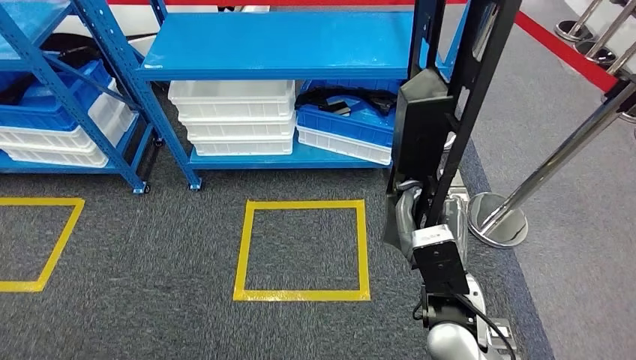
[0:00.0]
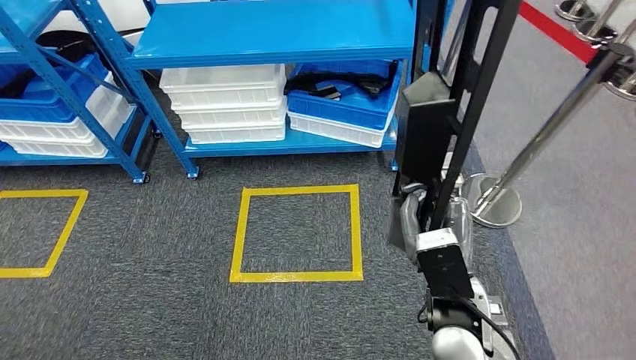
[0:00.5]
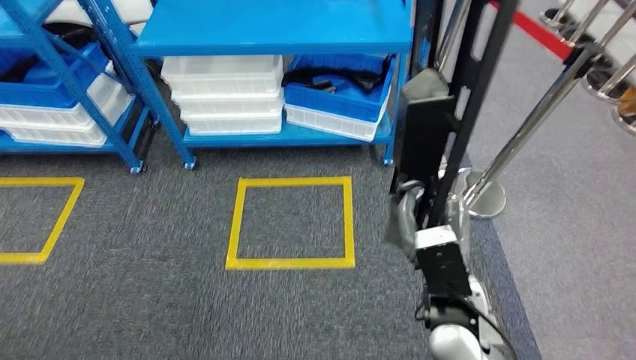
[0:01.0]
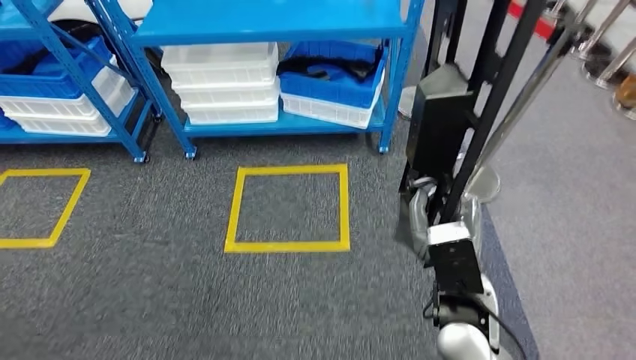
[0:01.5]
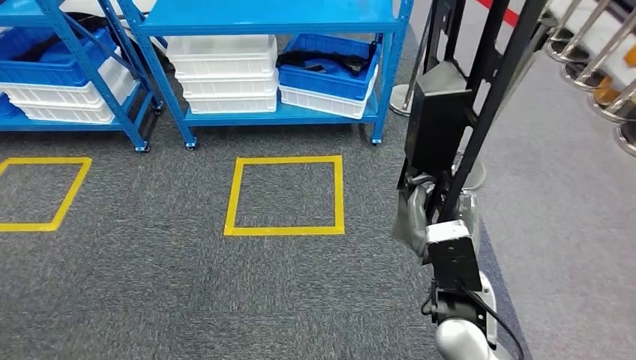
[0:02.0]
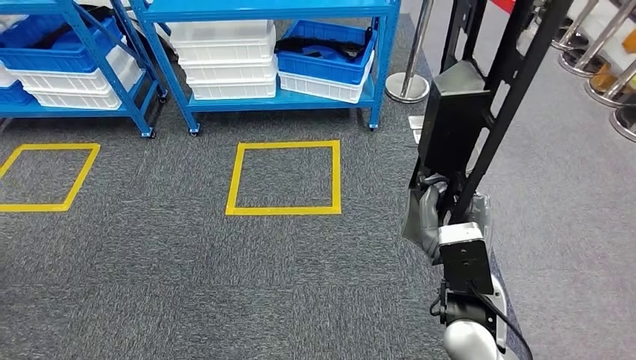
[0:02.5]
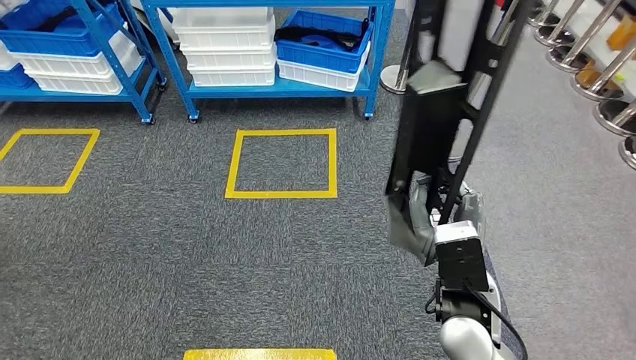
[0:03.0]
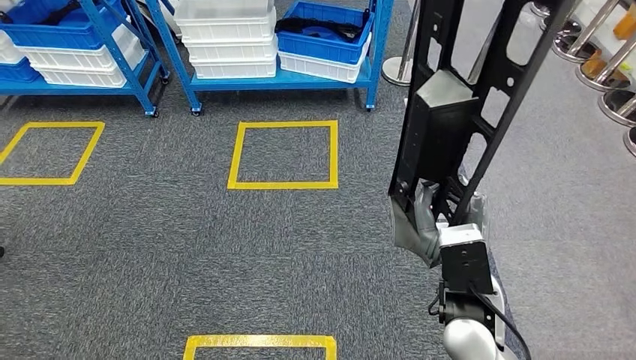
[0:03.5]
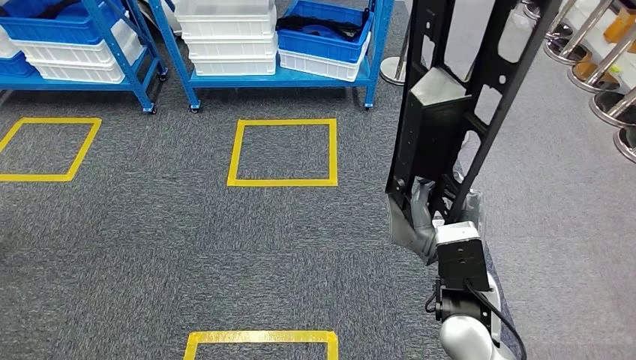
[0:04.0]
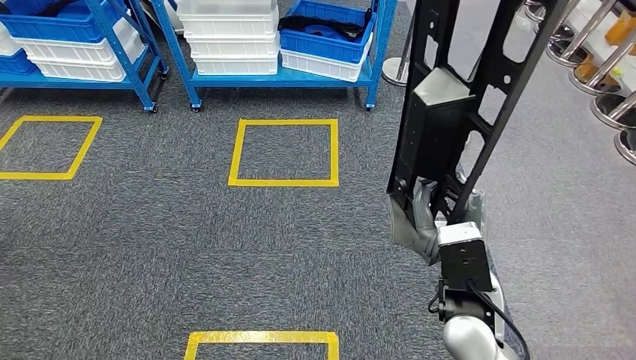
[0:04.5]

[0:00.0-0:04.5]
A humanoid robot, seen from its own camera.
Step, 0:00.0 to 0:04.5: Move the large material to the workbench.
